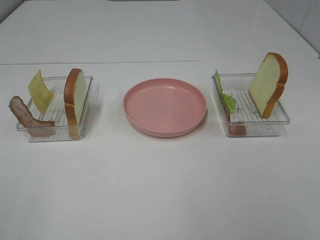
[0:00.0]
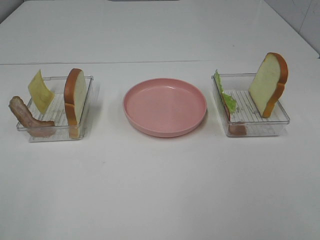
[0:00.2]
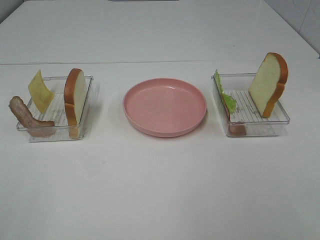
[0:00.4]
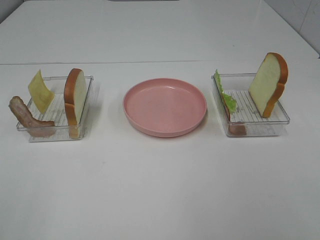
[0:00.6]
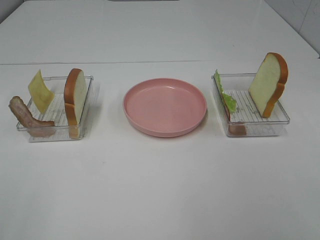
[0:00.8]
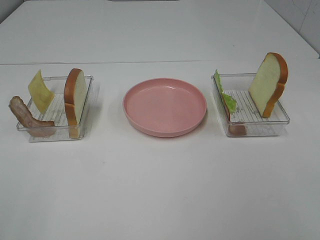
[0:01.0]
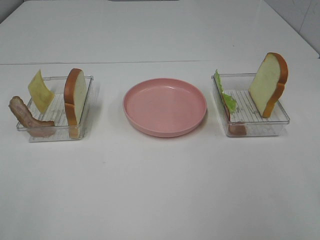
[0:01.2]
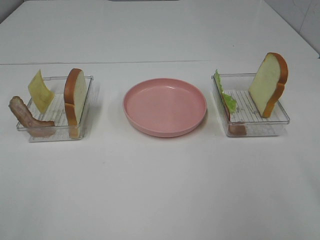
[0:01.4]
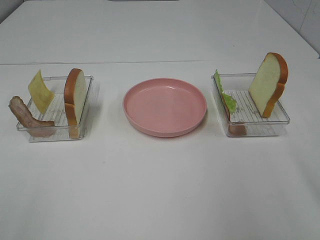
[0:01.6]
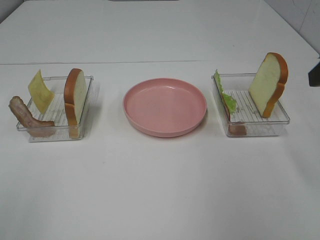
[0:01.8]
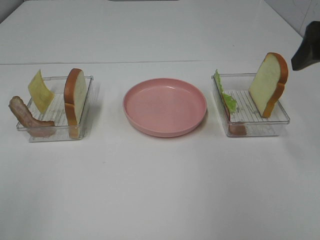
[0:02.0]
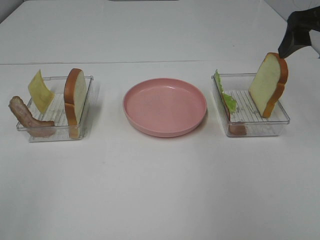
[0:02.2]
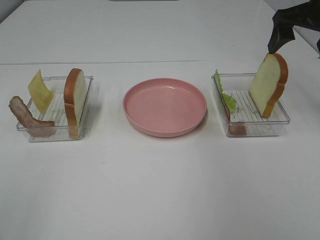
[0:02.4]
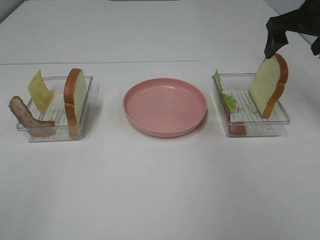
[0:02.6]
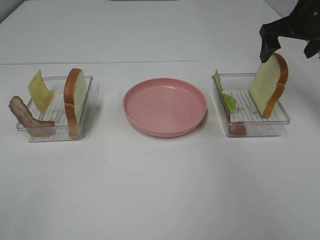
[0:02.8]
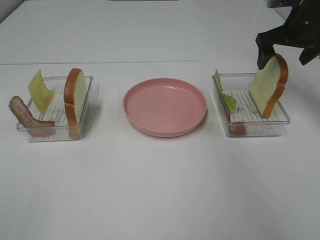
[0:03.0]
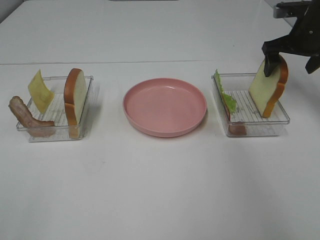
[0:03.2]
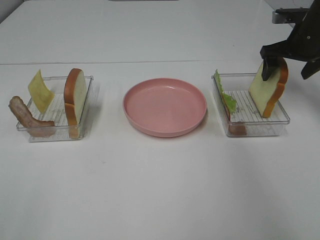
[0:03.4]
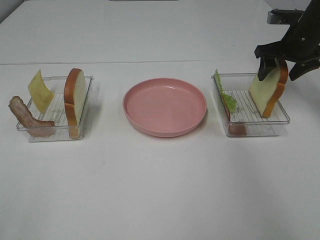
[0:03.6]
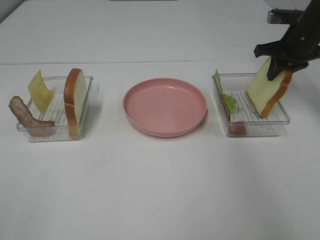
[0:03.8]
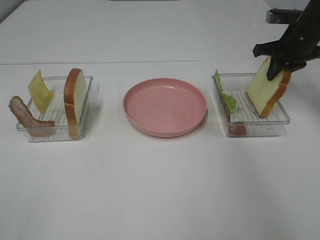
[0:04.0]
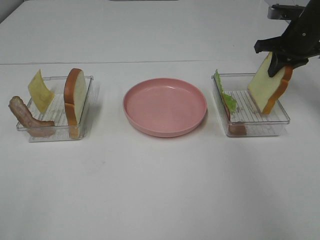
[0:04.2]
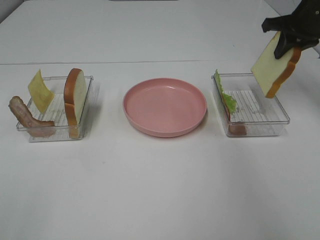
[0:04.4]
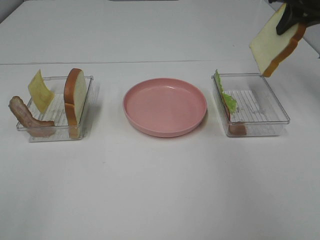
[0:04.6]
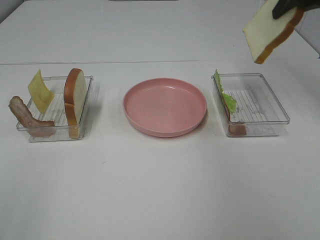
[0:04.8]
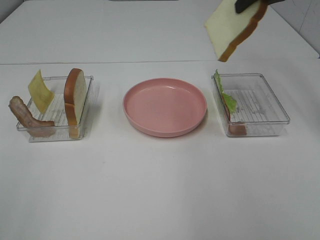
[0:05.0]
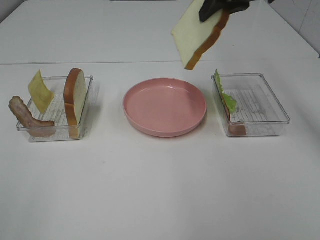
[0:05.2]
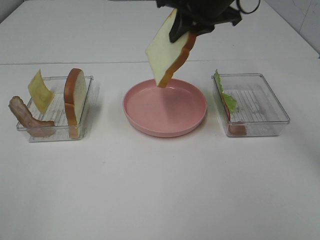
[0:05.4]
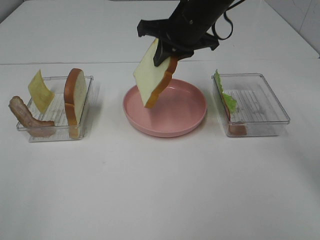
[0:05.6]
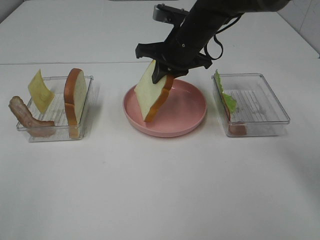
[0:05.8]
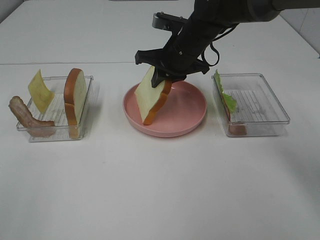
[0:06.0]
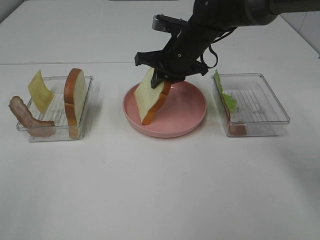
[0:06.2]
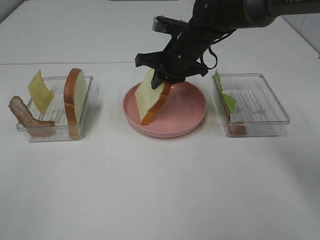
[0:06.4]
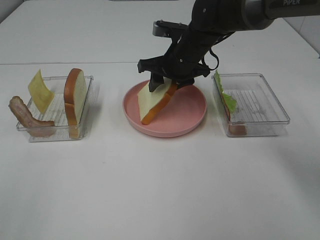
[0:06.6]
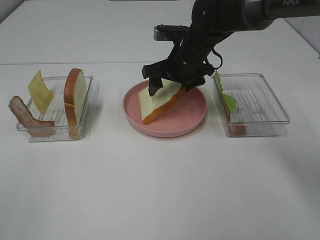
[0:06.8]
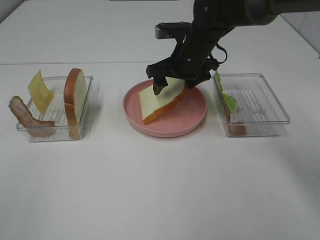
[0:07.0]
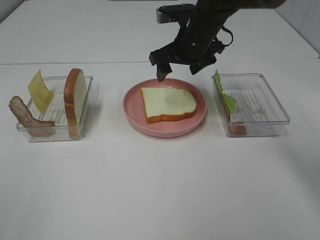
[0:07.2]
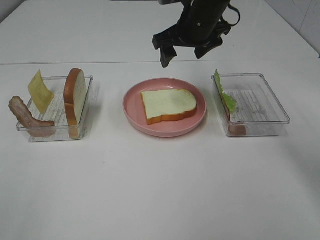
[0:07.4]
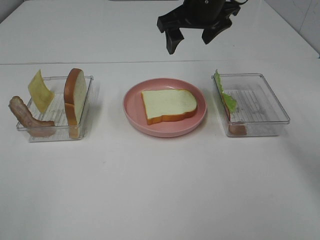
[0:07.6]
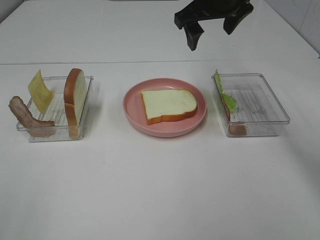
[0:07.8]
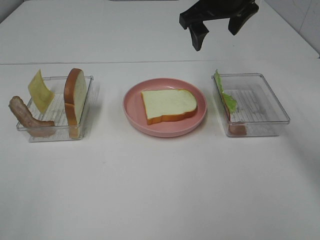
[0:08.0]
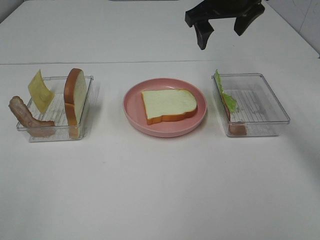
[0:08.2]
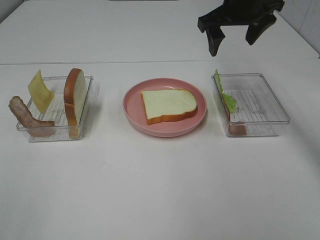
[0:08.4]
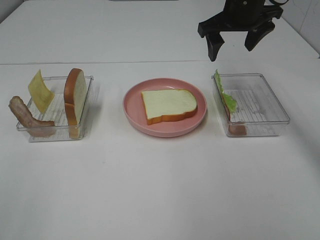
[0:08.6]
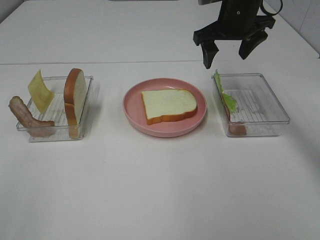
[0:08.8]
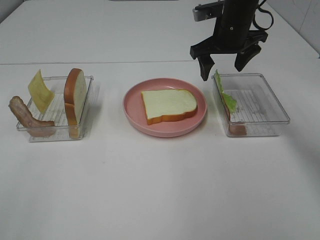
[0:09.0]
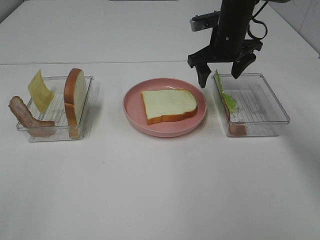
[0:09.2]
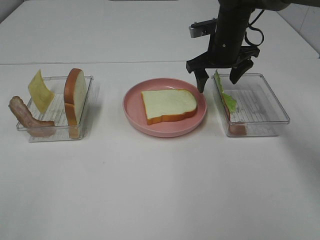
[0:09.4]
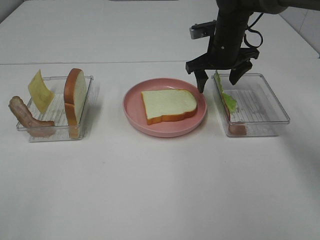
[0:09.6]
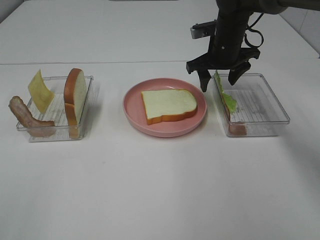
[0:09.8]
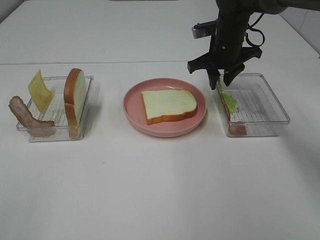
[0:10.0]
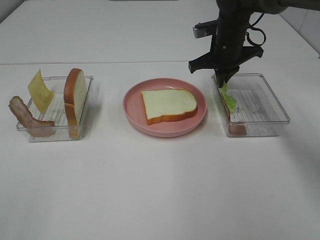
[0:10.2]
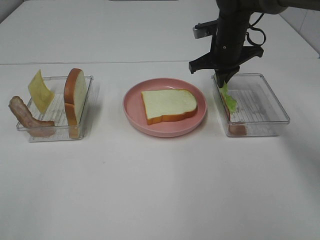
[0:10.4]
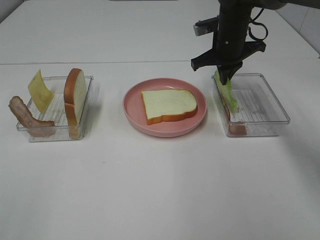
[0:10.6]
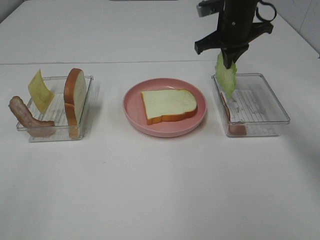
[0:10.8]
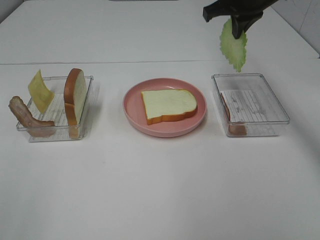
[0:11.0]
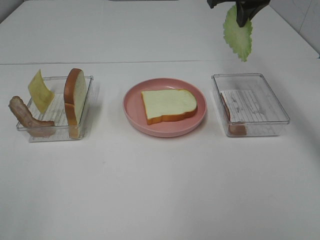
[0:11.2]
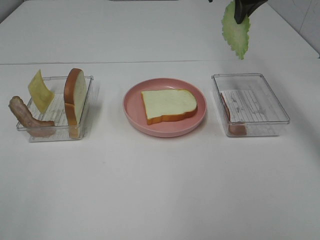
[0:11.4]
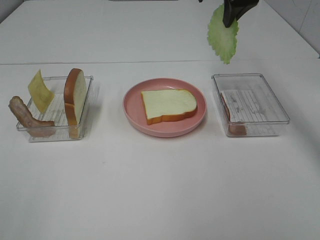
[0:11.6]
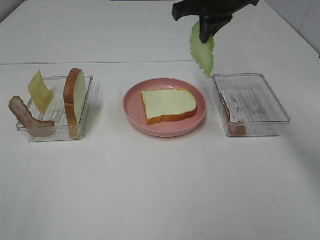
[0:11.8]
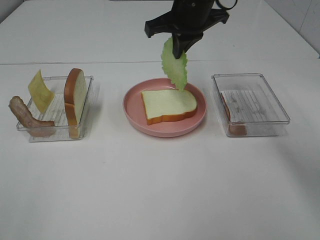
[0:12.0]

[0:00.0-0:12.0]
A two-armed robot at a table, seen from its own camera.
Task of the whole recording: Make sandwiches.
Step, 0:00.0 to 0:03.8: Right hand:grab the bread slice.
Step, 0:04.0 to 0:07.2: Right hand:place the bread slice on the plate.
Step, 0:07.4 to 0:10.2: Right hand:grab the lettuce slice.
0:01.6 to 0:03.0: The right gripper heads forward, covering some 30 cm.
0:03.0 to 0:04.4: The right gripper closes up.
0:04.4 to 0:06.0: The right gripper travels to the left by about 25 cm.
0:06.0 to 0:07.6: The right gripper shifts approximately 10 cm upward, and opens.
0:07.6 to 0:09.0: The right gripper heads downward and to the right, covering roughly 10 cm.
0:09.0 to 0:10.4: The right gripper closes.
0:10.4 to 0:12.0: The right gripper is displaced upward and to the left by approximately 15 cm.

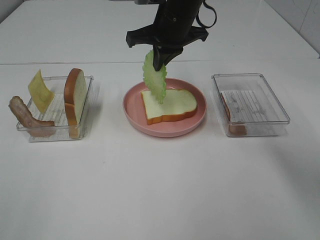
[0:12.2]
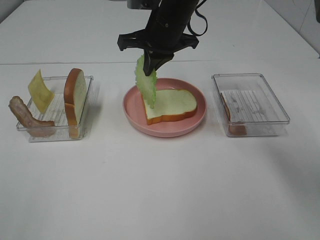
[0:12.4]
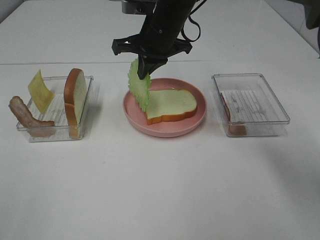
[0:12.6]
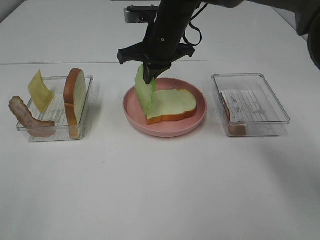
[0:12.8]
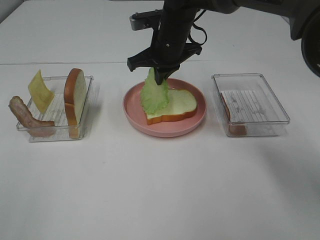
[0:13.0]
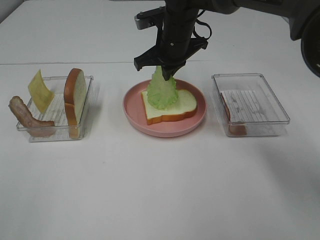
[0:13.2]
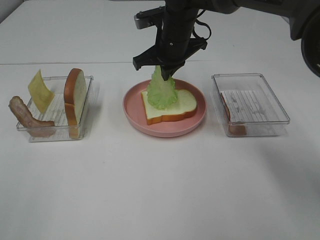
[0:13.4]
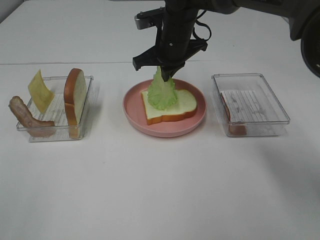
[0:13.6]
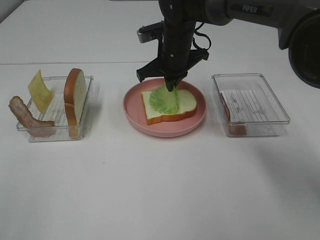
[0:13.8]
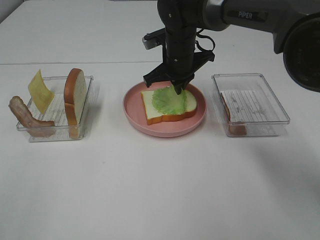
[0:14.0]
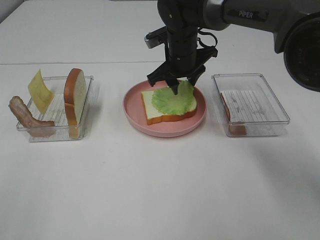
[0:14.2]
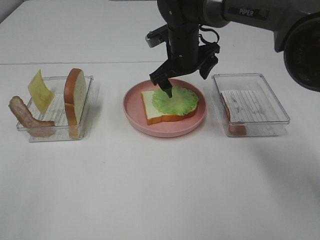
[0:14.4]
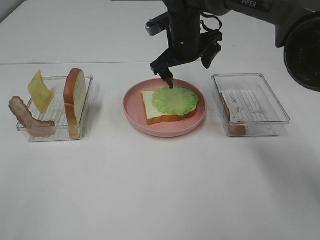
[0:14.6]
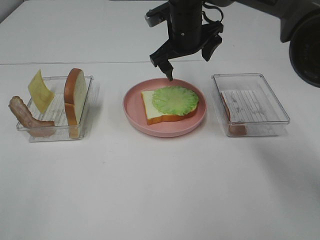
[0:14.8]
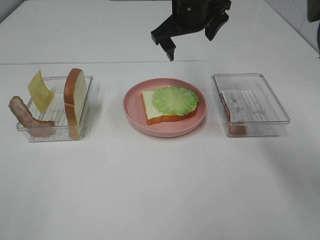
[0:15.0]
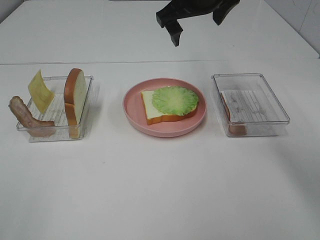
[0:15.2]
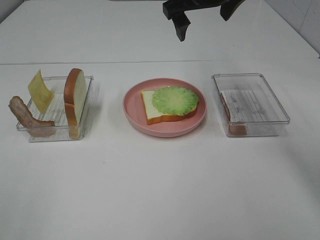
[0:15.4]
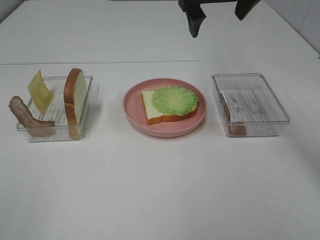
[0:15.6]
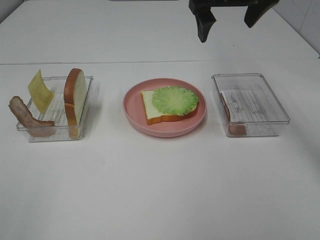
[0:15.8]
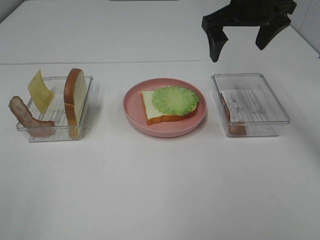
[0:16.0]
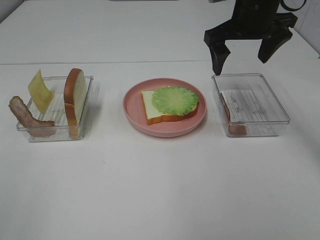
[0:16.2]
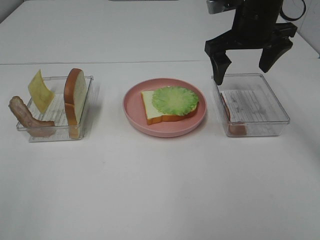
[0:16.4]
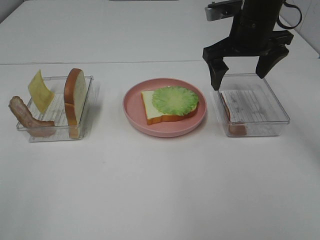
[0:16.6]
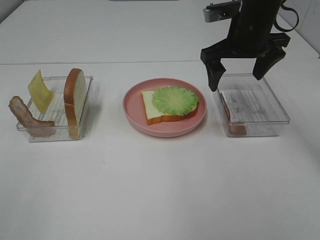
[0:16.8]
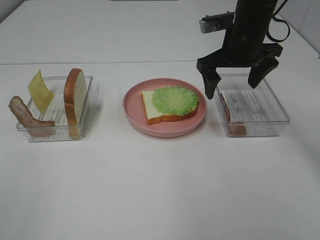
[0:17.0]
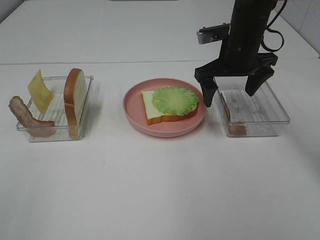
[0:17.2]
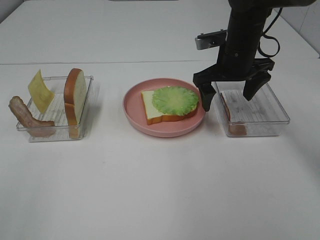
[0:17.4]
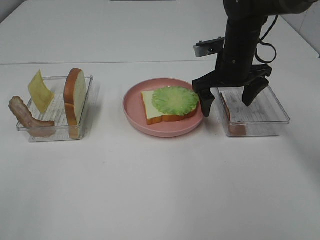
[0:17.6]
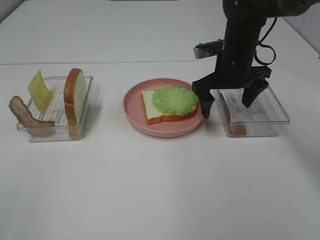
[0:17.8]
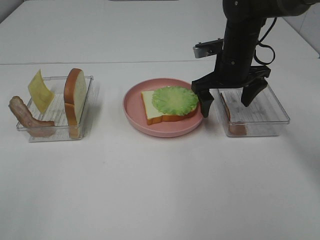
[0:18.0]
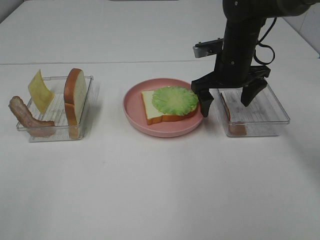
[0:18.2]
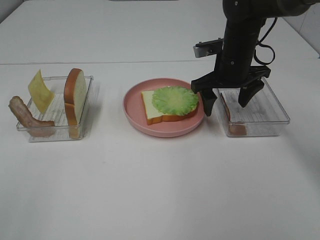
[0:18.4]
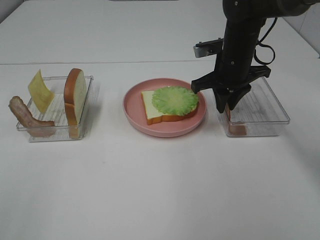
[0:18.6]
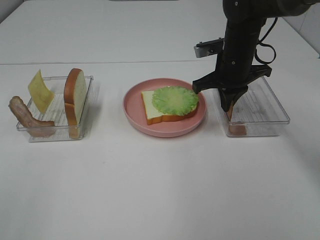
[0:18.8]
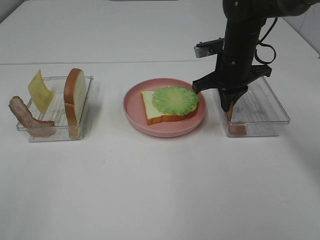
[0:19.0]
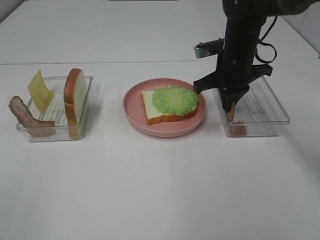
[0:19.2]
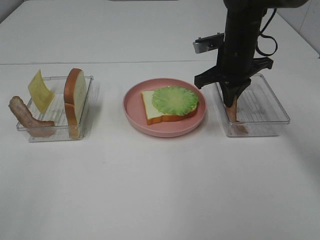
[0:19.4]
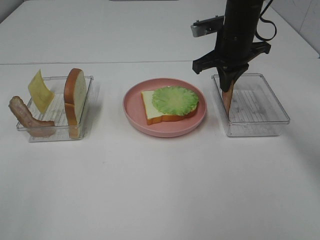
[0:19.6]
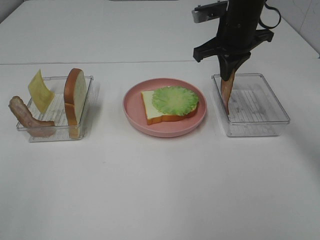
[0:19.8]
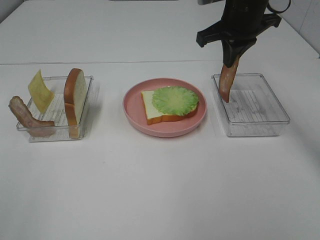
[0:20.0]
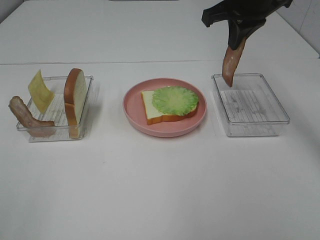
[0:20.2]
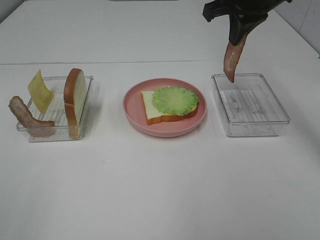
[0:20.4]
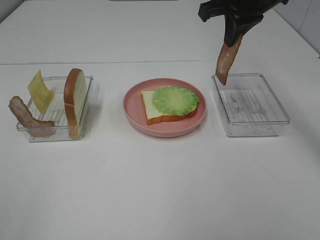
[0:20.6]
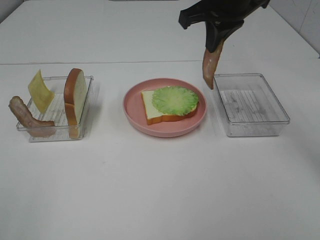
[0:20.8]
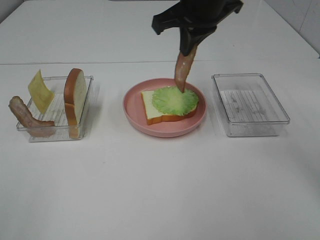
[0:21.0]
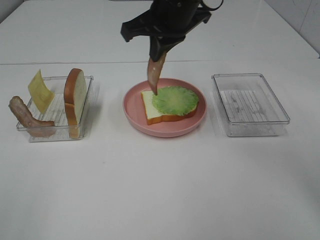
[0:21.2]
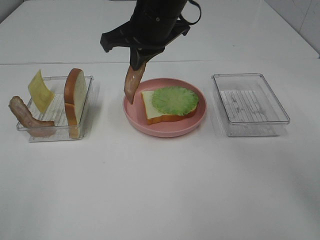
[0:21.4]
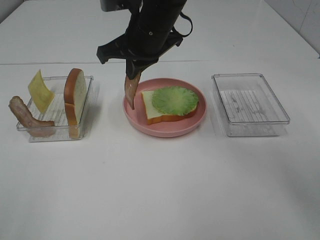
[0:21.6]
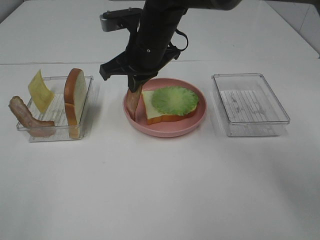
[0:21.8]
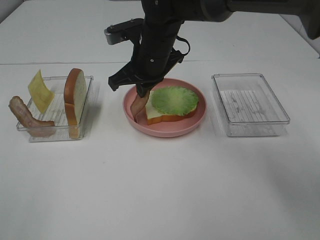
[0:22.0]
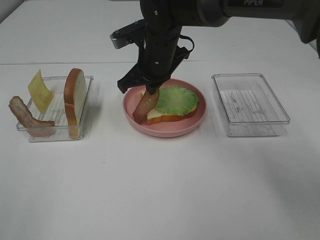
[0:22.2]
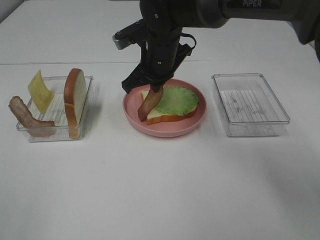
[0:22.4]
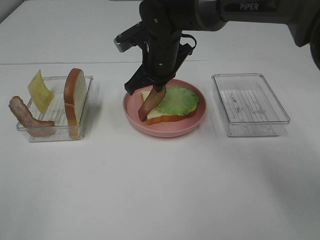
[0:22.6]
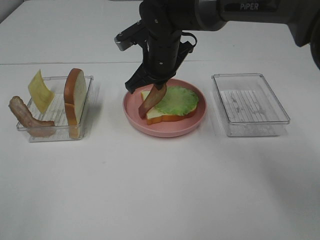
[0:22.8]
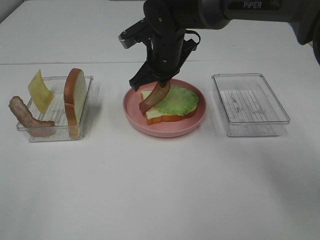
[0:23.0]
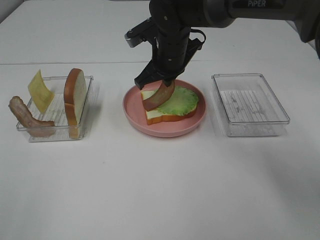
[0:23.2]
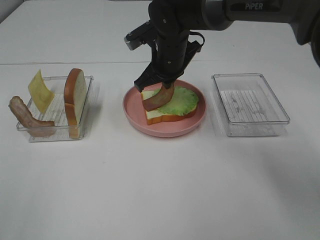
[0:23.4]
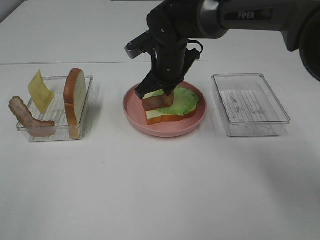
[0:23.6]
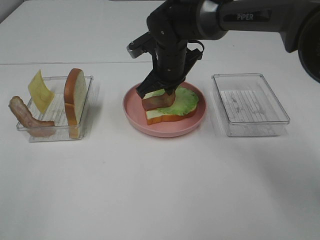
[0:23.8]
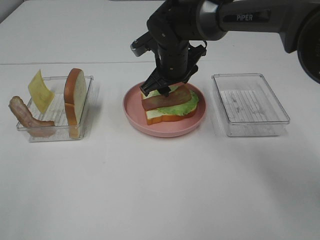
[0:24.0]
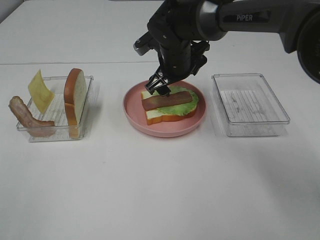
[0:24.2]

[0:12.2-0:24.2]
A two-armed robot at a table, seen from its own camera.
Task of the whole recording: Make sandwiches.
Step, 0:12.2 to 0:14.2: Right hand:place the lettuce slice on the bread slice.
Step, 0:14.4 to 0:19.2: Right hand:grab the bacon.
Step, 0:19.4 to 0:24.0: Right hand:place bacon on lettuce slice.
0:12.2 to 0:13.8: The right gripper heads downward, covering about 10 cm.
0:13.8 to 0:15.2: The right gripper shifts roughly 15 cm upward, and opens its fingers.
0:15.2 to 0:16.6: The right gripper goes about 10 cm to the right and downward.
0:16.6 to 0:18.2: The right gripper moves downward, some 10 cm.
0:18.2 to 0:19.8: The right gripper heads upward, covering some 5 cm, and closes up.
0:19.8 to 0:21.2: The right gripper travels to the left and backward by some 15 cm.
0:21.2 to 0:22.6: The right gripper is displaced downward by roughly 10 cm.
0:22.6 to 0:24.2: The right gripper opens.
